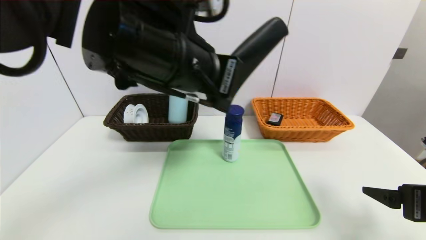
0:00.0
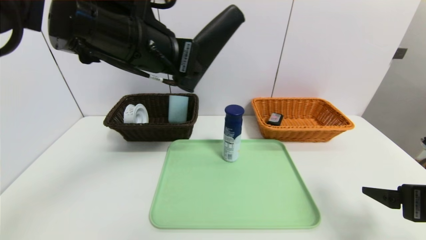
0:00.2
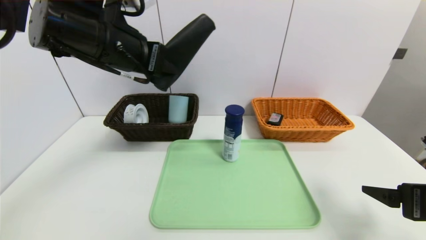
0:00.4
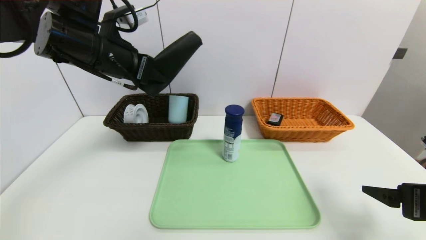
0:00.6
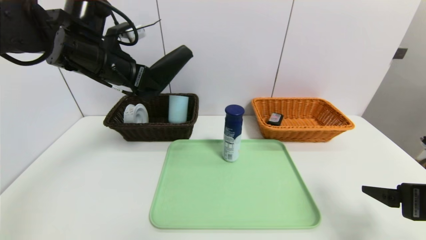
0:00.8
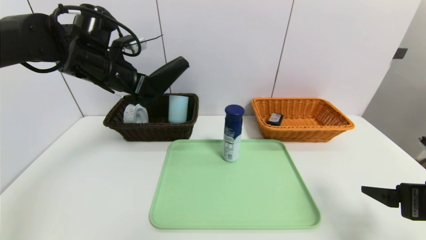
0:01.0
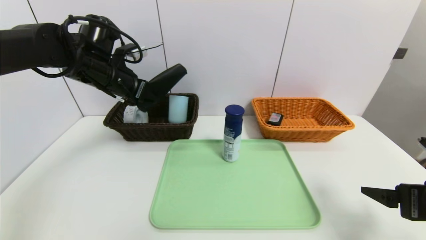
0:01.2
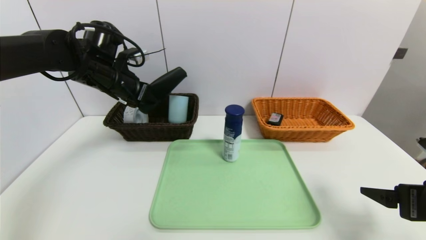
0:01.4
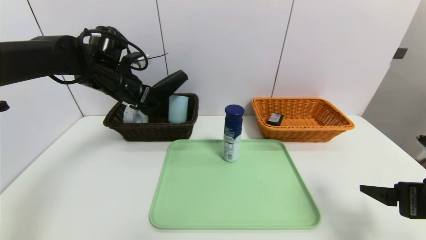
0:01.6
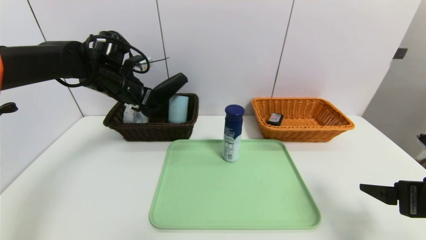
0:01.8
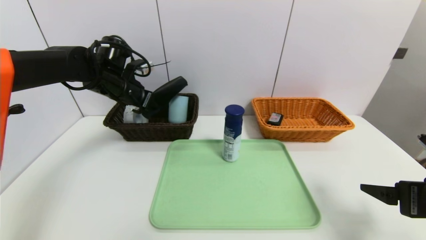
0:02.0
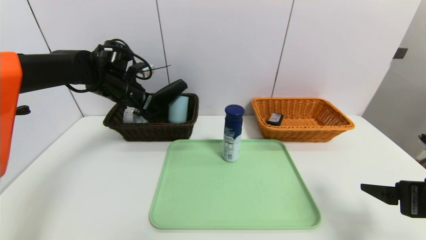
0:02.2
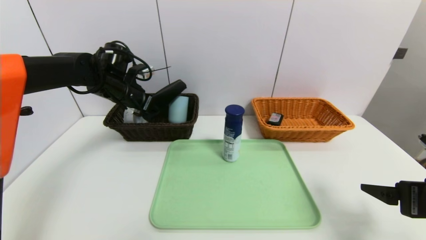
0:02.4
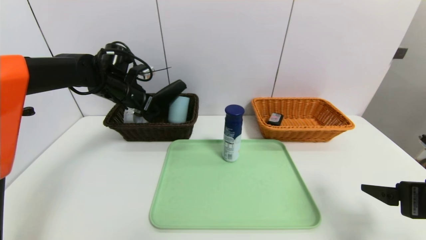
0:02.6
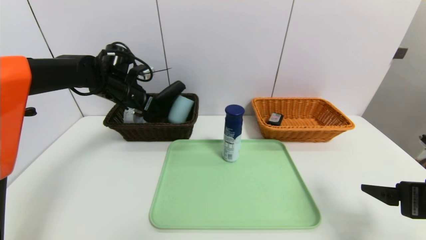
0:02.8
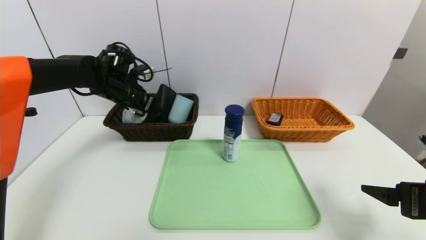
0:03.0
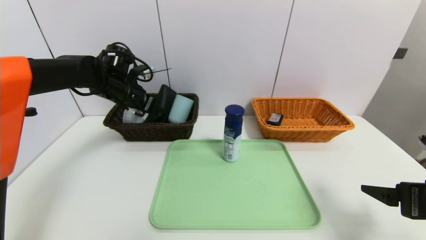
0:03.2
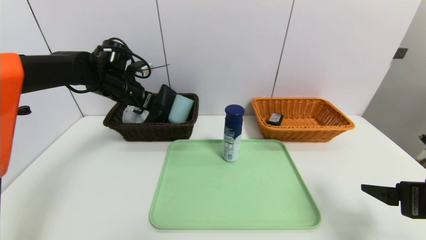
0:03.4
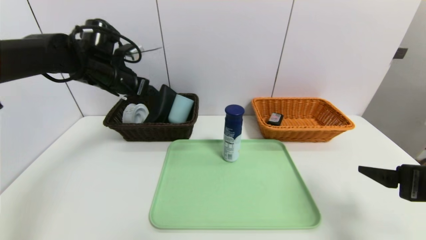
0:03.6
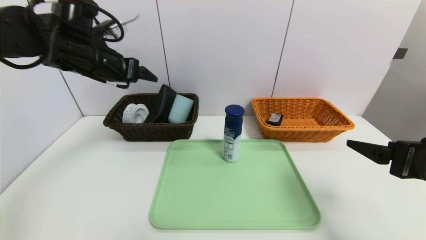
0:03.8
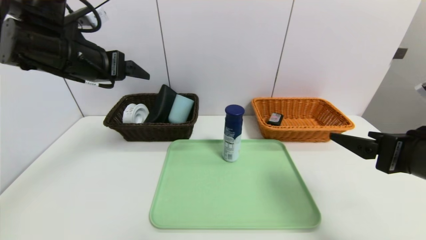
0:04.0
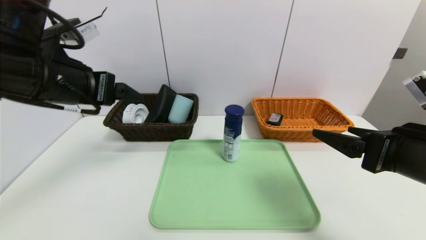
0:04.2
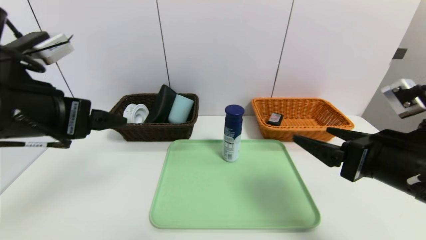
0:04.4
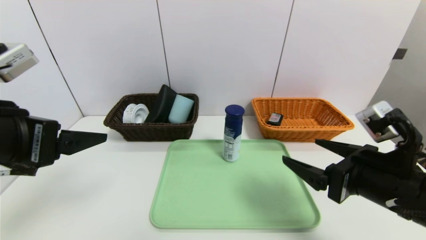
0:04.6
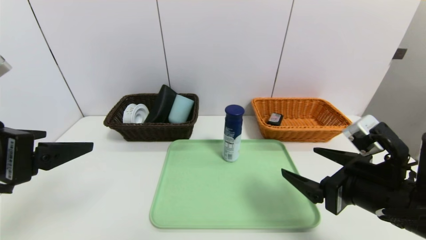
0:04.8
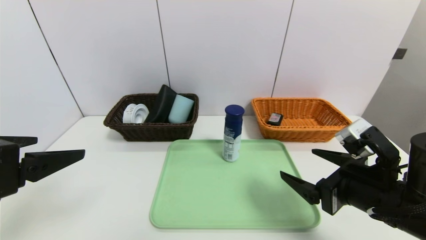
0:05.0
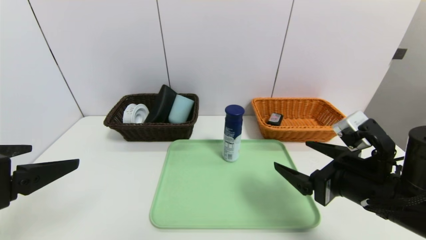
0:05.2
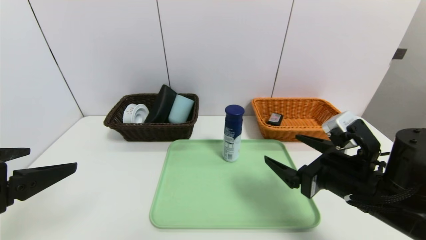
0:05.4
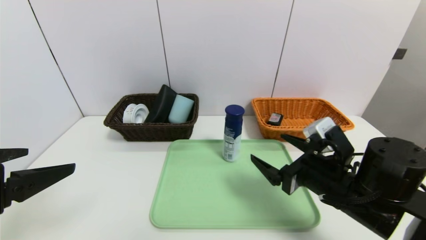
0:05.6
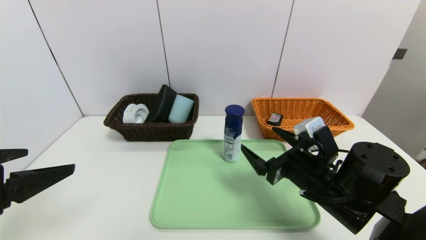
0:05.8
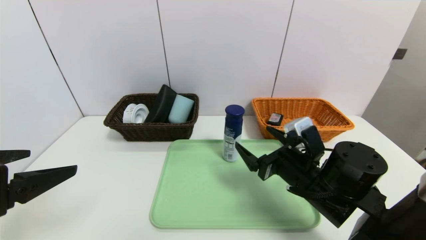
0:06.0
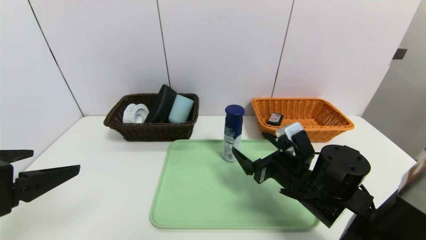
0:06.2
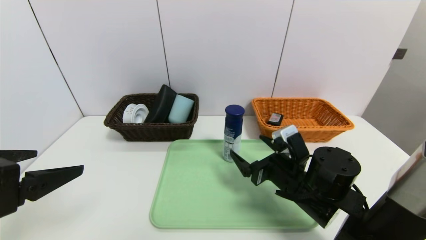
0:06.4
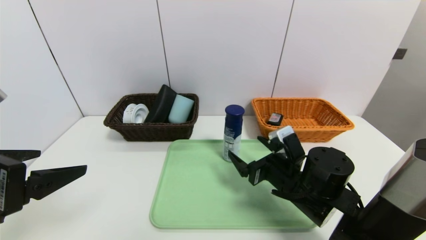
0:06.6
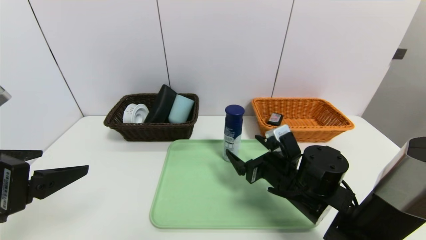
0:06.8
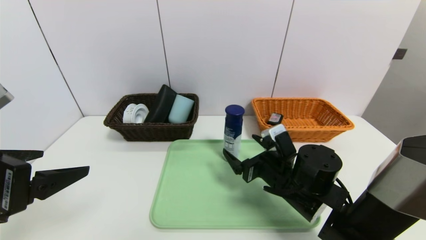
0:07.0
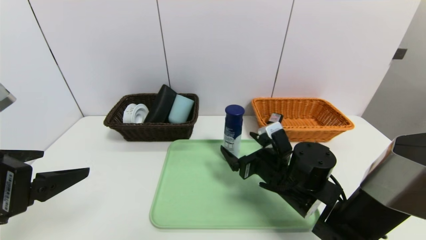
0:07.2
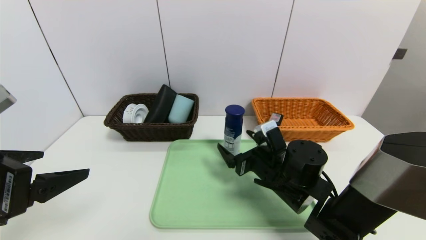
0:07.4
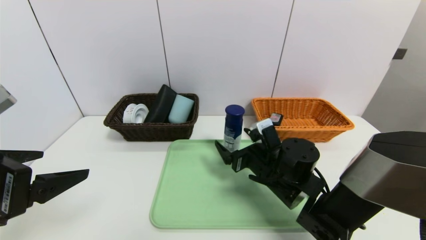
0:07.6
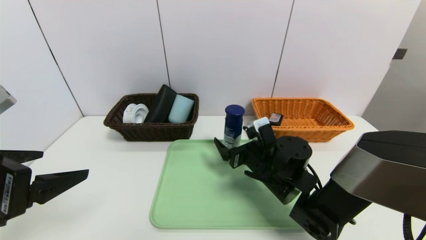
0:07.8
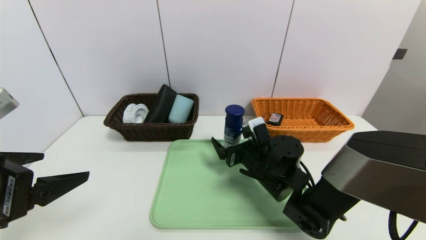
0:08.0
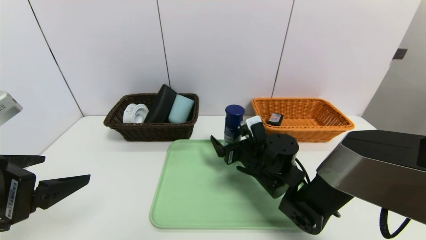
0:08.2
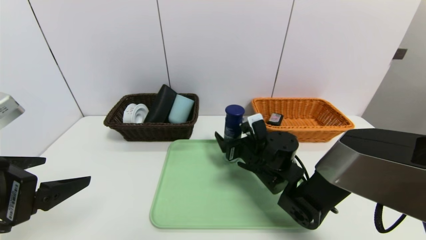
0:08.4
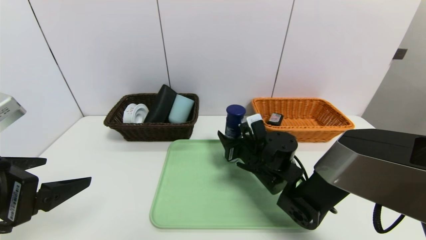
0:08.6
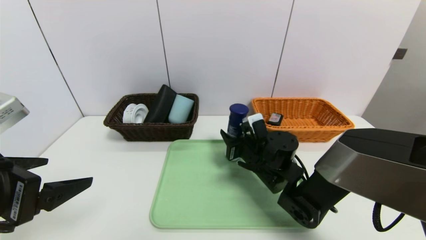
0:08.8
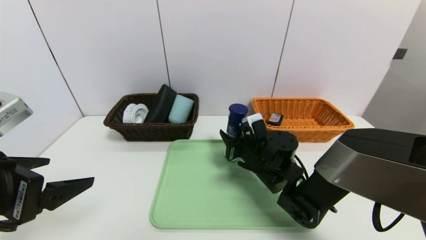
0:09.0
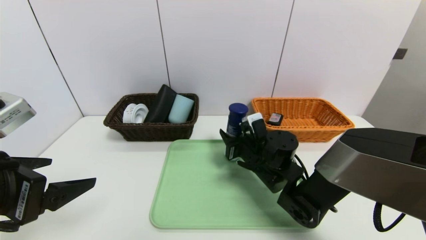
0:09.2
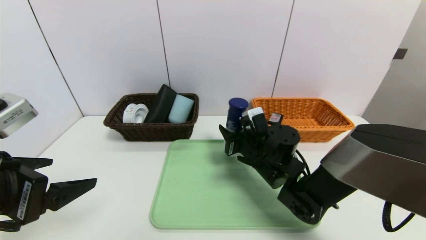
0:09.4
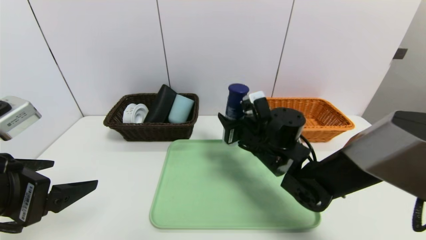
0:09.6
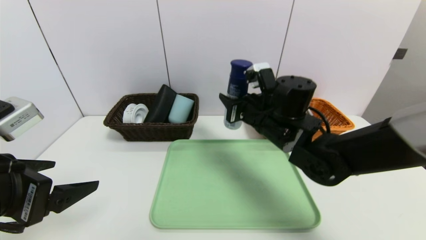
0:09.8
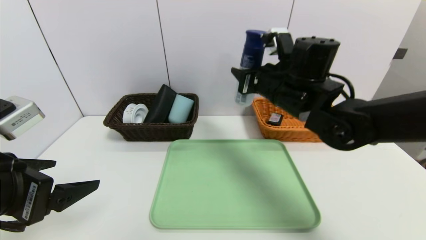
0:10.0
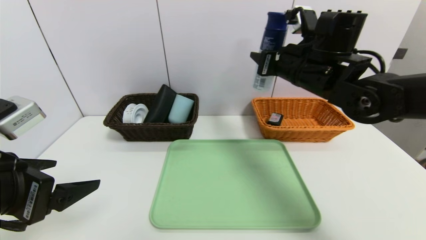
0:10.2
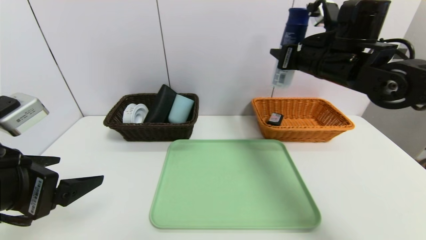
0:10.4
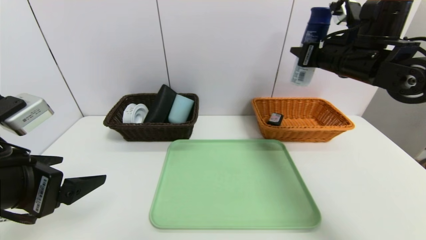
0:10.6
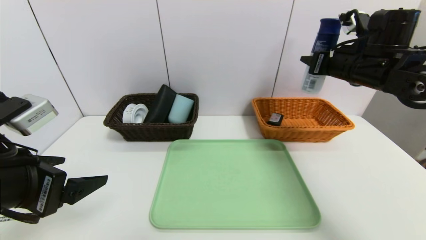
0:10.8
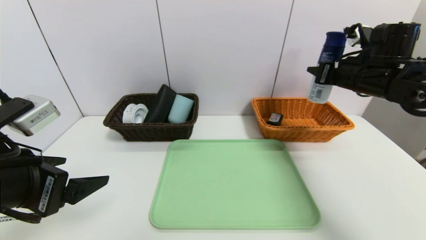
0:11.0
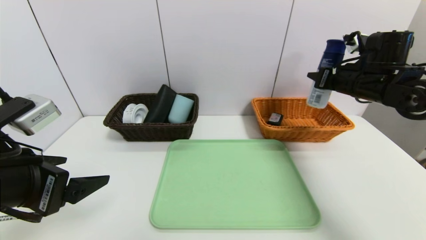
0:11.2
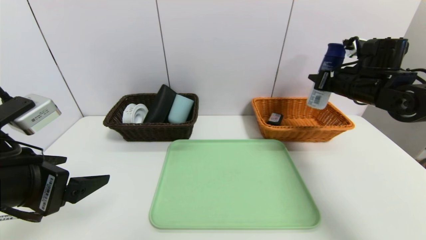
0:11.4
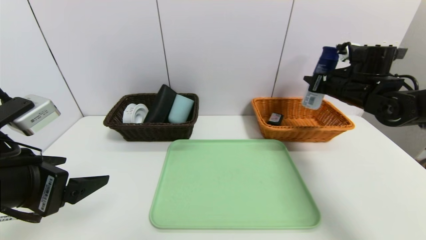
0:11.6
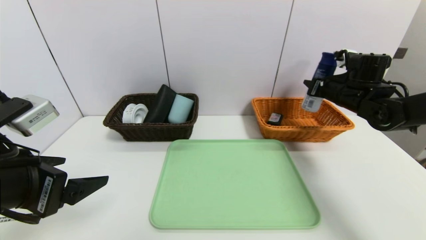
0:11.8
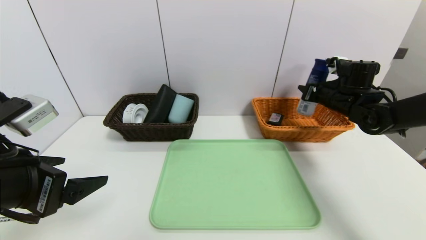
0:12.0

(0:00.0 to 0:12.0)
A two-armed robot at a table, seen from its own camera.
Task of the whole recording: place the food in the right basket with the right gripper, and place the non food items in the left basket with the left gripper.
Step, 0:00.0 - 0:03.6: Grasp the glasses case and put it in the left basket.
0:00.0 - 0:01.6: The left gripper is displaced forward, to the left and downward by about 25 cm.
0:01.6 - 0:03.0: The left gripper changes place by approximately 5 cm, and opens its fingers.
0:03.0 - 0:04.4: The right gripper travels to the left by approximately 10 cm. Meanwhile the left gripper goes roughly 25 cm backward, and opens.
0:04.4 - 0:06.0: The left gripper shifts approximately 10 cm backward. Meanwhile the right gripper is displaced downward, to the left and forward by roughly 15 cm.
0:06.0 - 0:07.6: The right gripper moves about 5 cm.
0:07.6 - 0:09.0: The right gripper closes.
0:09.0 - 0:10.4: The right gripper goes about 25 cm upward and to the right.
0:10.4 - 0:12.0: The right gripper shifts approximately 15 cm downward, to the right and forward.

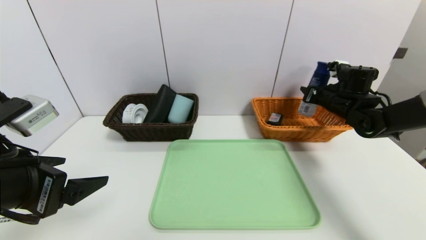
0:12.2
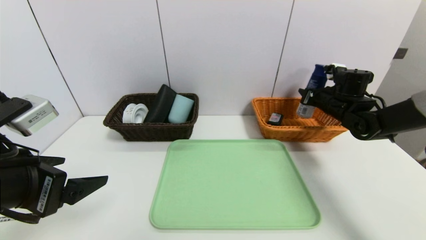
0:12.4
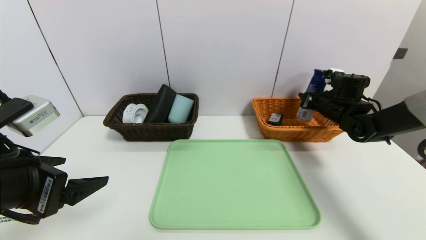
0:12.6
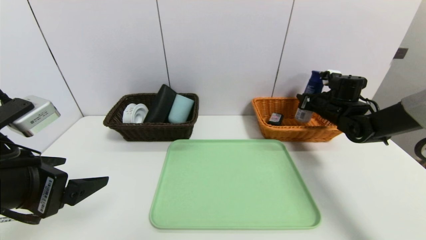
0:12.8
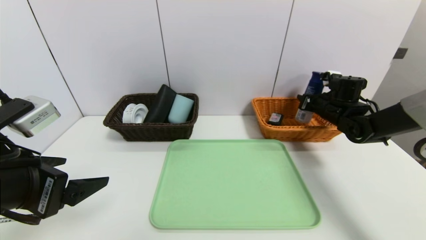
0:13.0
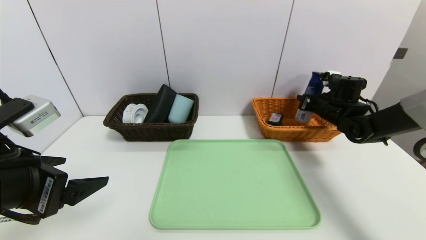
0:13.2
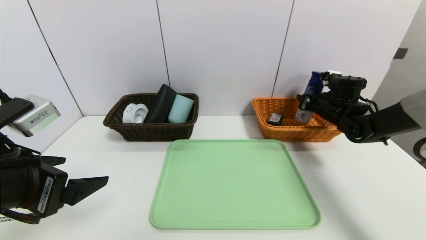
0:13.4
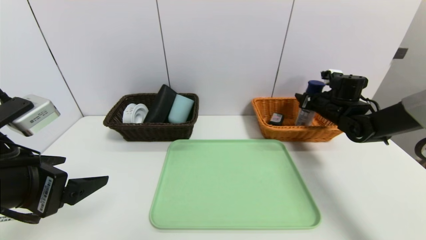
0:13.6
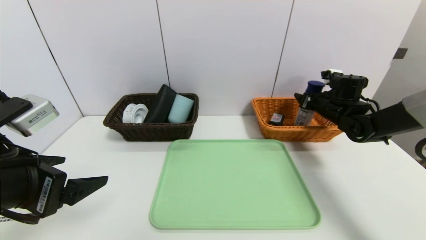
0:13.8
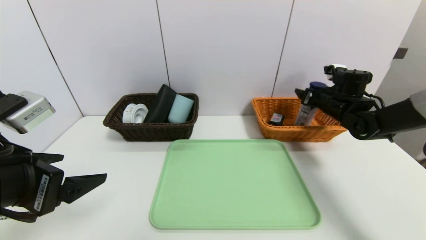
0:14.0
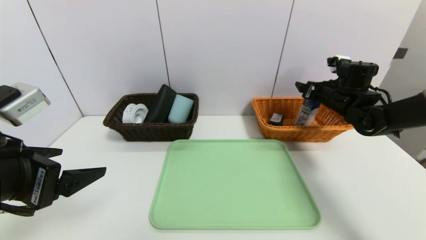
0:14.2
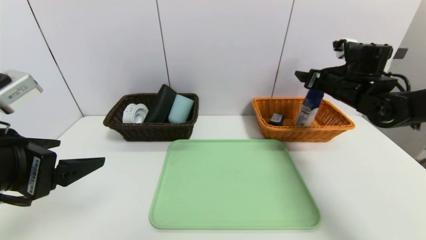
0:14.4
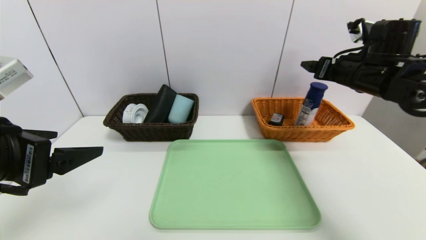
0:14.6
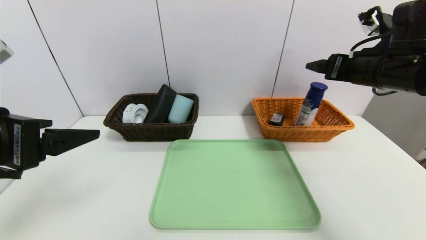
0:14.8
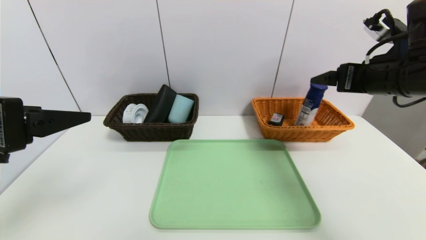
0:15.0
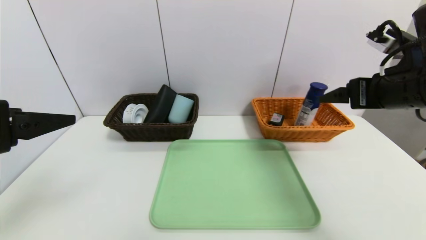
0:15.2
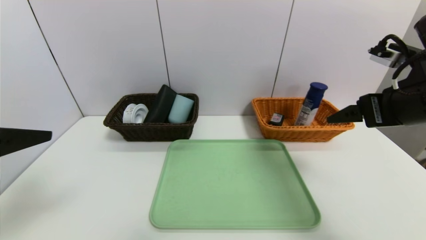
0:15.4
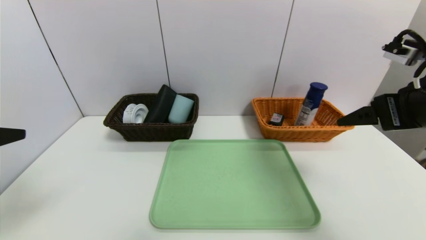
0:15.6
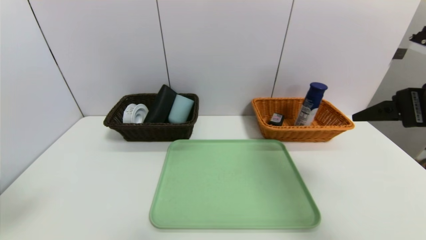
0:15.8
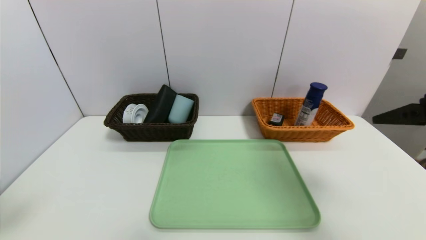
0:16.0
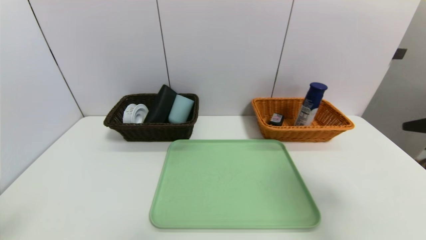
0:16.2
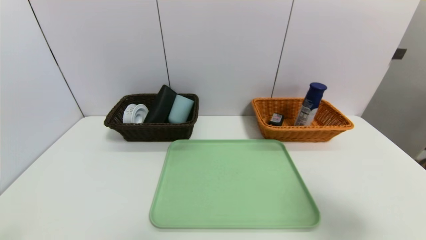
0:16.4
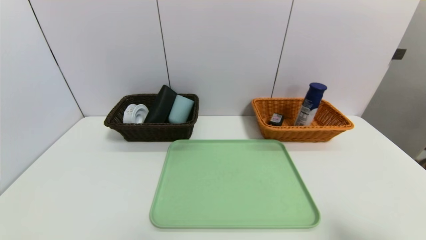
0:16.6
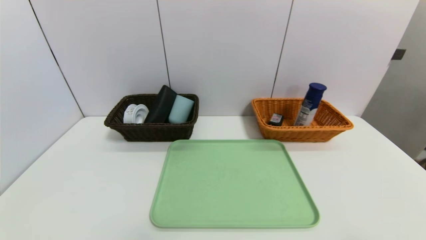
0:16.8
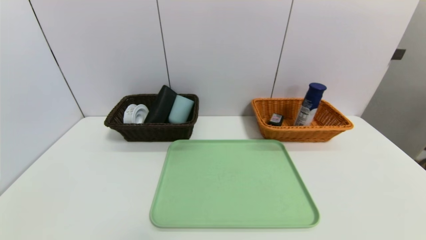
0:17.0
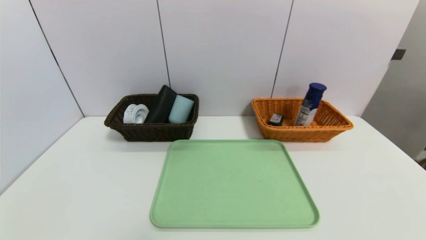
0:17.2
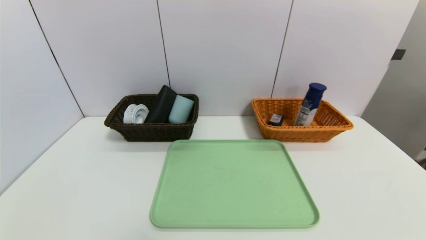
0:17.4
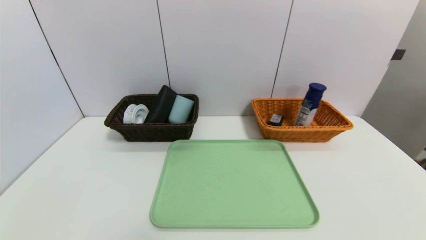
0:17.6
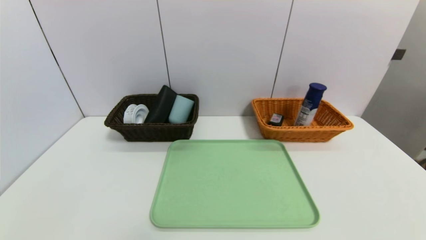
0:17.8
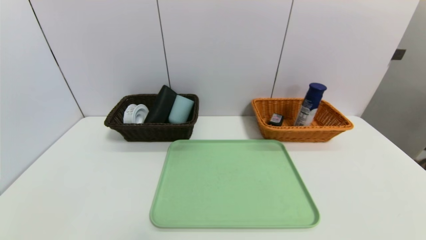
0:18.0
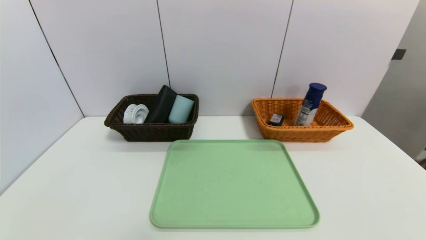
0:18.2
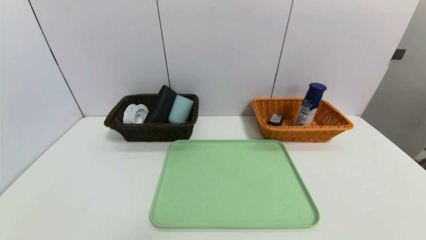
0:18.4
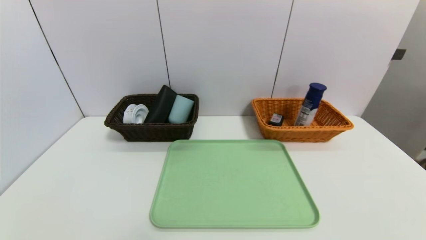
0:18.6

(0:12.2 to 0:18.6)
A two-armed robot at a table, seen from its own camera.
Task of the whole recording: place the food in the right basket with the right gripper, and place the non food items in the left basket with the left gripper.
Step, 0:12.2 - 0:14.4: Grasp the yogurt and put it in the right basket.
0:12.2 - 0:13.8: The right gripper opens.
0:13.8 - 0:15.4: The right gripper goes some 25 cm backward and upward. Meanwhile the left gripper moves upward, some 10 cm.
0:15.4 - 0:17.0: The left gripper heads backward and downward, covering roughly 20 cm; the right gripper goes roughly 25 cm backward.
